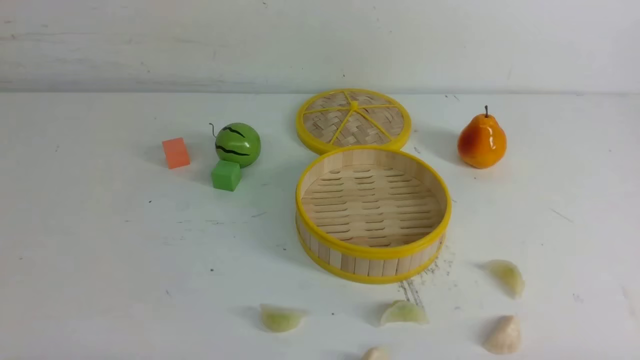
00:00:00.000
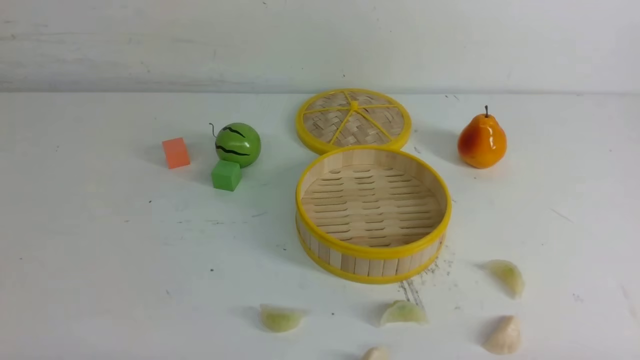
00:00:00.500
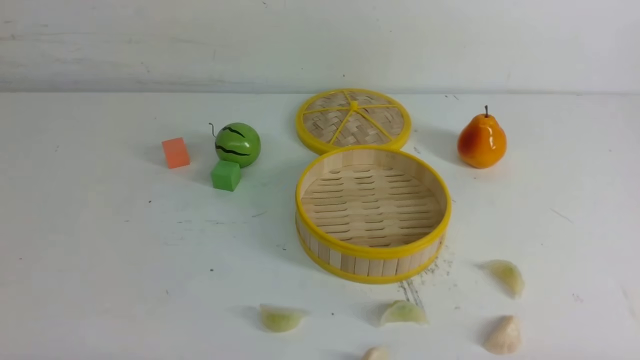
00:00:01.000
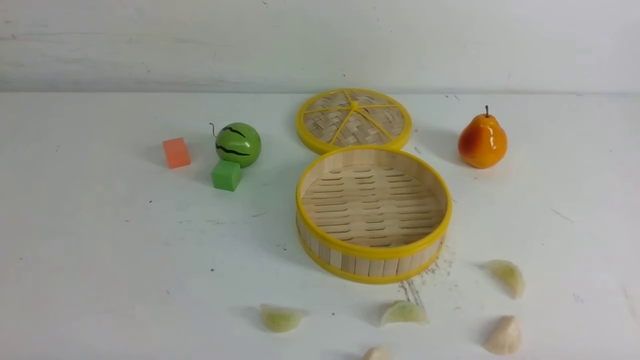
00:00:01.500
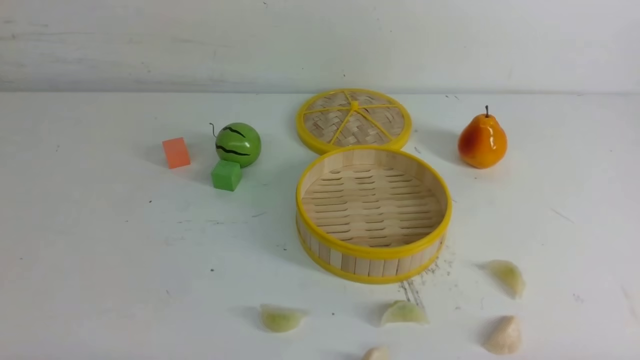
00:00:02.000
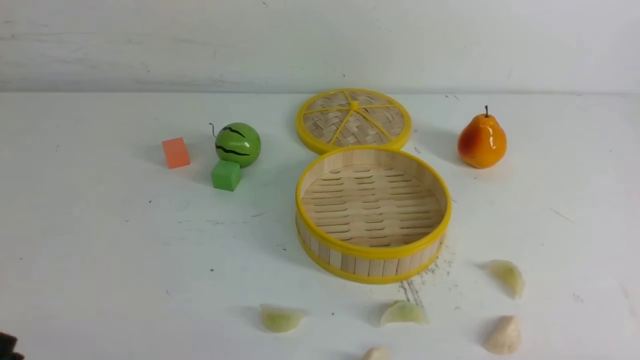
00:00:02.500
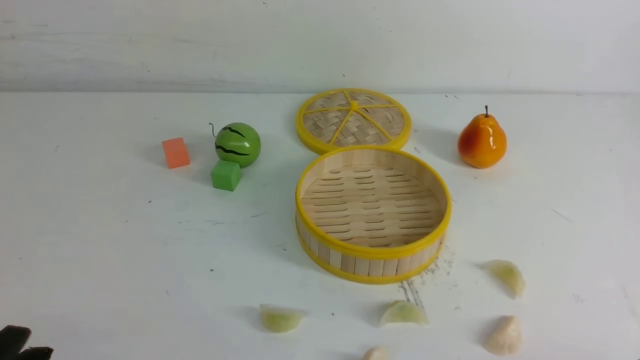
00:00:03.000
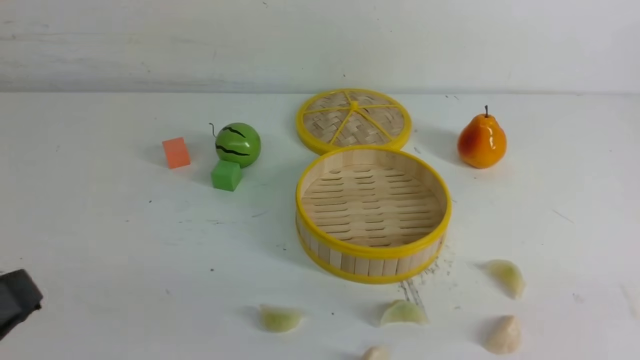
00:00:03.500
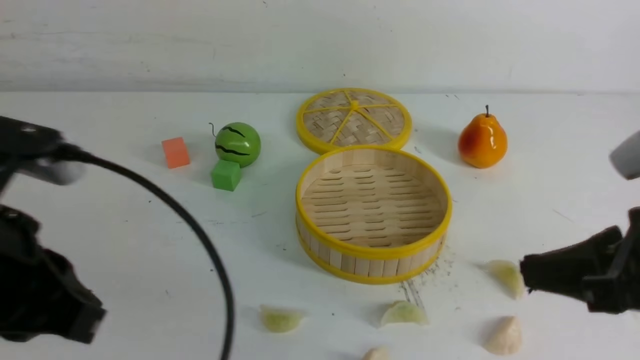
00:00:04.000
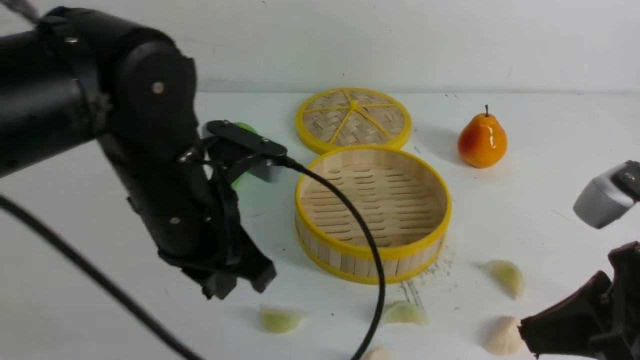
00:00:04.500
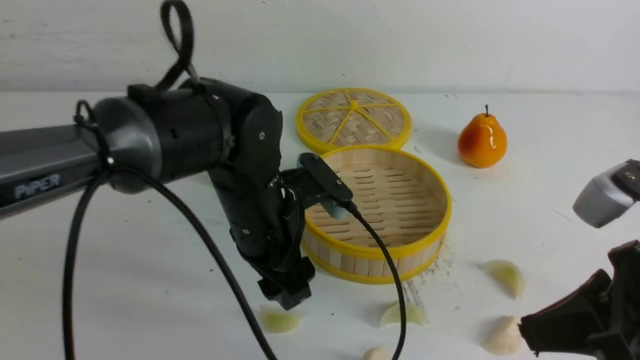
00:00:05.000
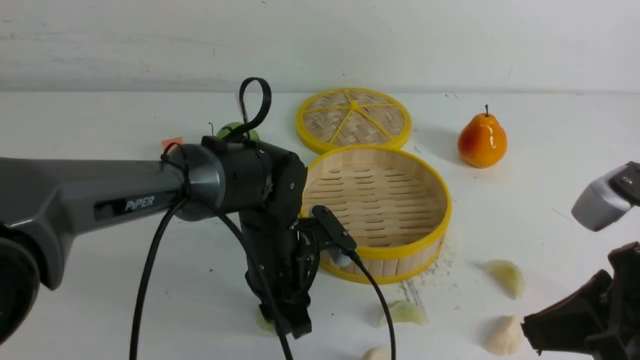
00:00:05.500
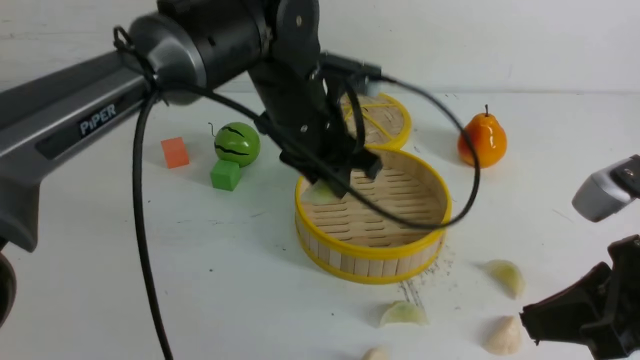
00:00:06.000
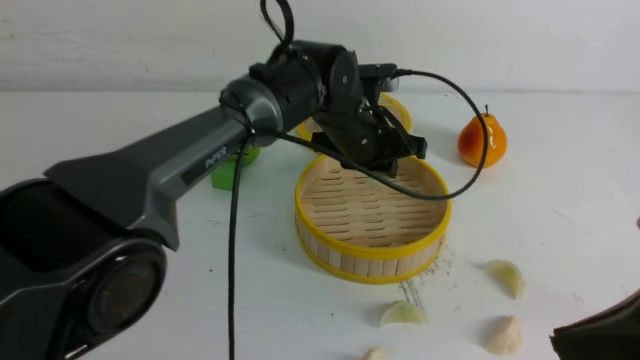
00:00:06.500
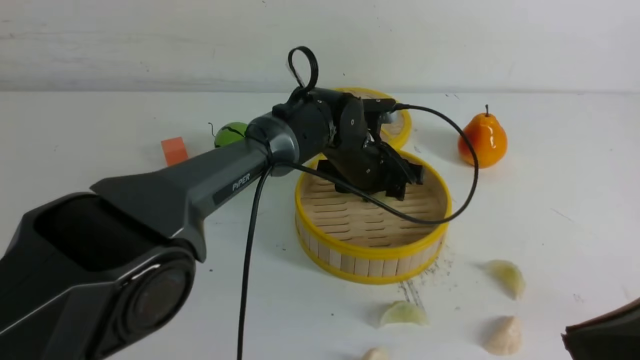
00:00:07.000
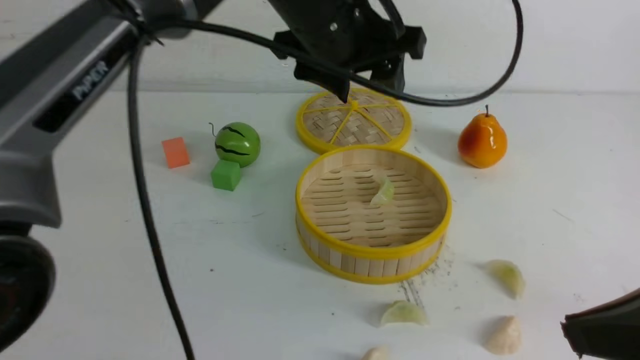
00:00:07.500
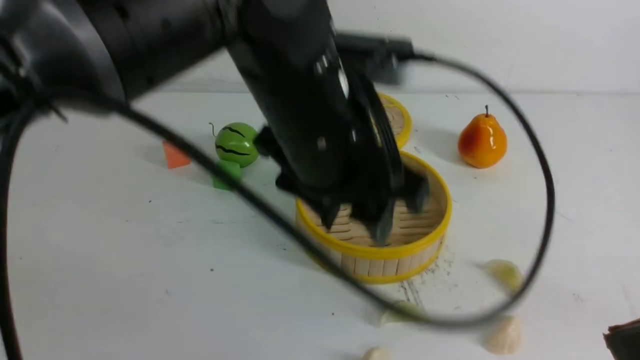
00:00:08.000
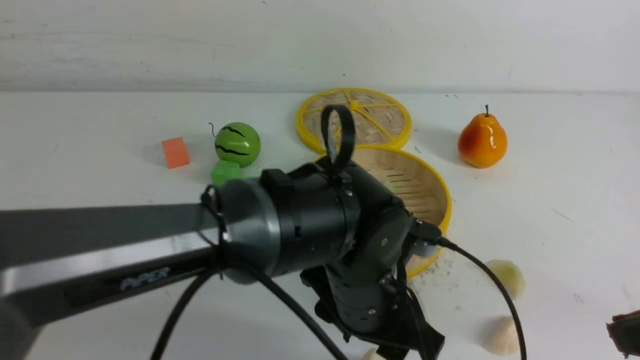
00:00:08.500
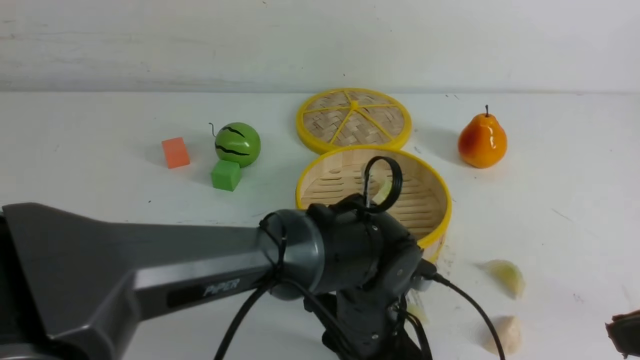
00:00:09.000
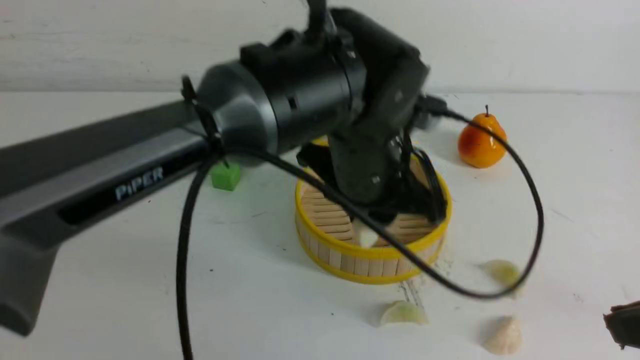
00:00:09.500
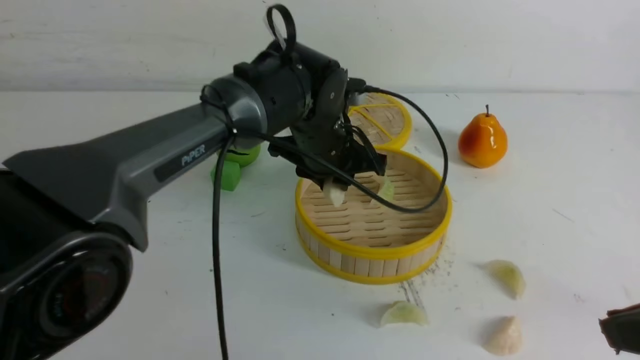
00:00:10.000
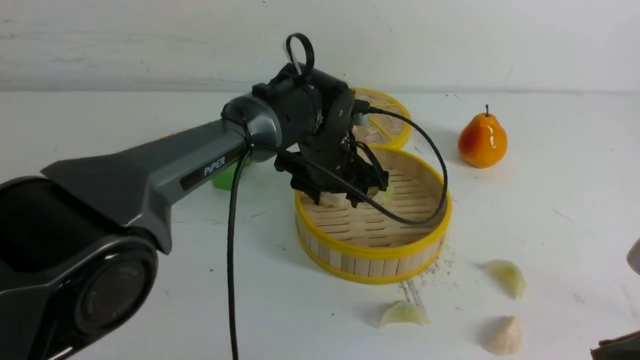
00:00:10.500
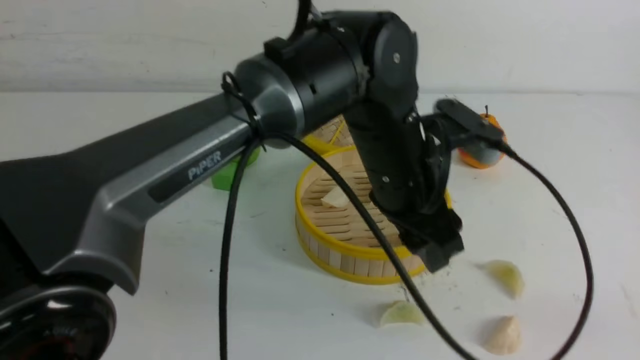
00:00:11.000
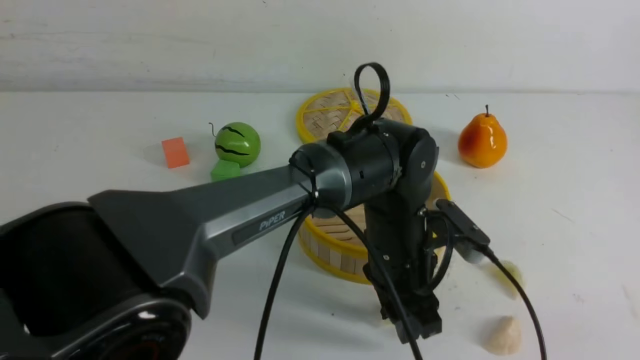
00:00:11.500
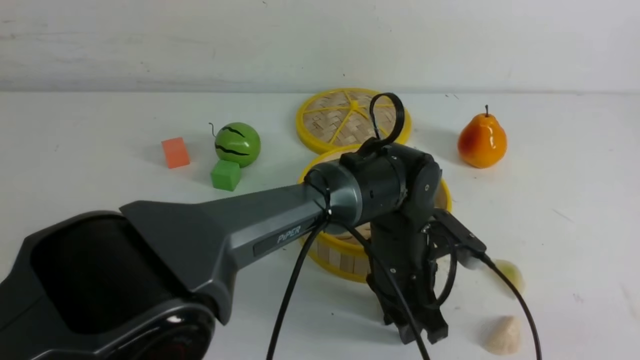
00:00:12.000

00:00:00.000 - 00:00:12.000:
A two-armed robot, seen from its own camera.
Task of the whole recording: put the dumplings into the steamer on the white table.
Step, 00:00:00.000 - 00:00:05.500: use the left arm to grab a dumpling.
Step, 00:00:06.000 - 00:00:07.000: use the left arm to put the dumpling into the steamer.
Step, 00:00:07.500 - 00:00:09.000: use the left arm to grab a dumpling.
Step, 00:00:09.500 - 00:00:10.500: use the left arm to put the dumpling into the steamer.
00:00:00.000 - 00:00:02.000: Neither gripper changes place.
00:00:02.000 - 00:00:04.000: The left gripper heads upward and forward, covering about 20 cm, and closes up. Meanwhile the right gripper moves upward, forward and to the left, roughly 20 cm, and closes up.
00:00:04.000 - 00:00:06.000: The left gripper goes some 30 cm forward and to the right, and opens.
00:00:06.000 - 00:00:08.000: The left gripper is displaced backward by roughly 10 cm, and opens up.
00:00:08.000 - 00:00:10.000: The left gripper moves up and down over roughly 20 cm, changing direction 2 times, and closes its fingers.
00:00:10.000 - 00:00:12.000: The left gripper shifts roughly 15 cm backward, to the right and downward, and opens, then closes once more. Meanwhile the right gripper moves backward, some 5 cm.

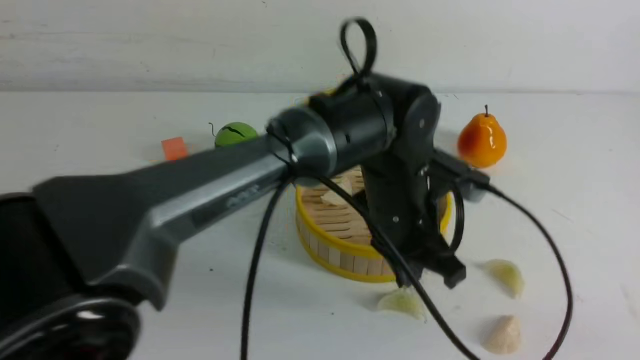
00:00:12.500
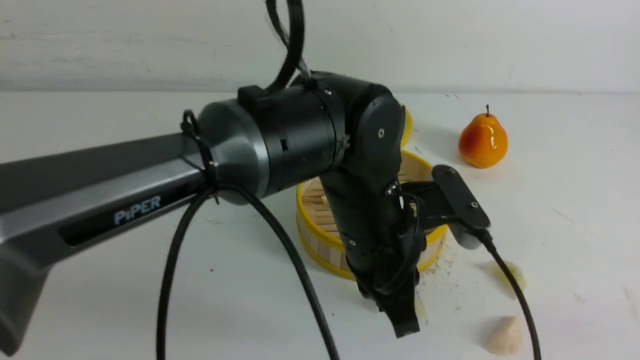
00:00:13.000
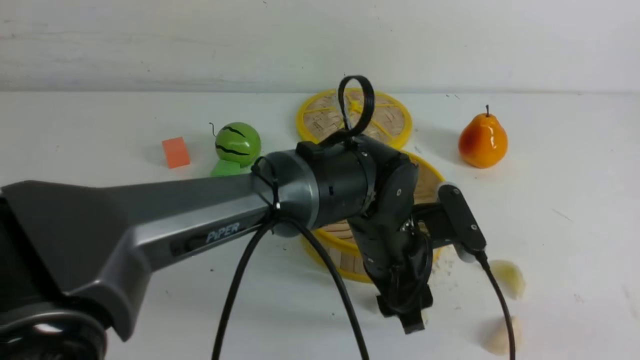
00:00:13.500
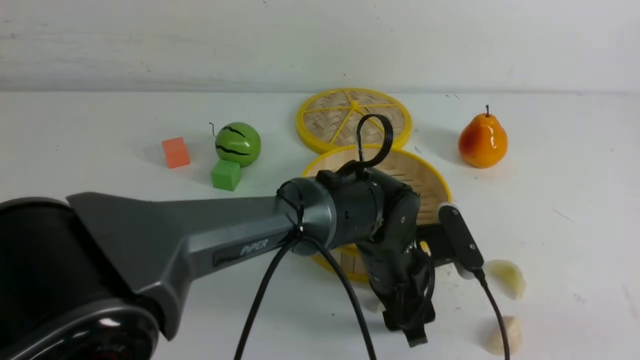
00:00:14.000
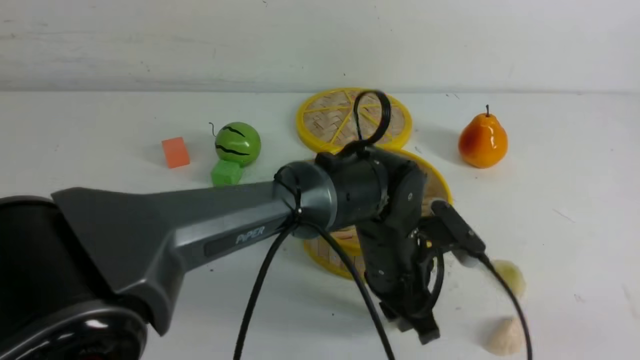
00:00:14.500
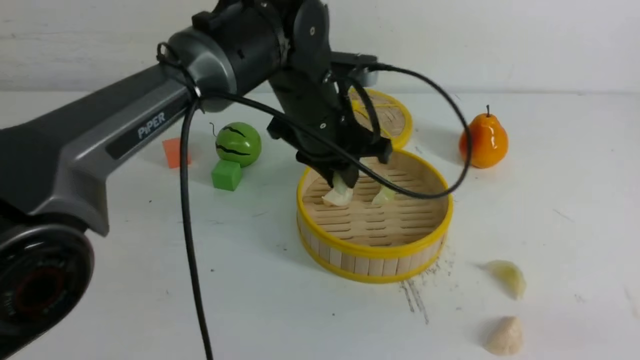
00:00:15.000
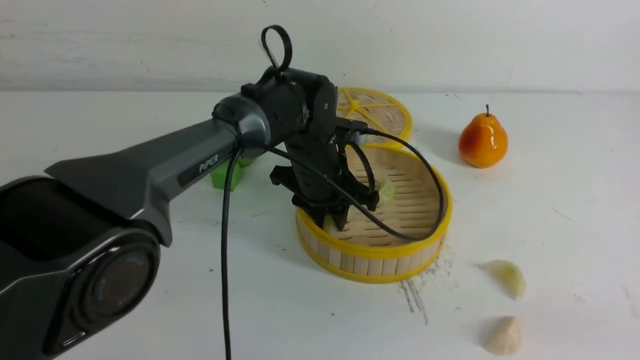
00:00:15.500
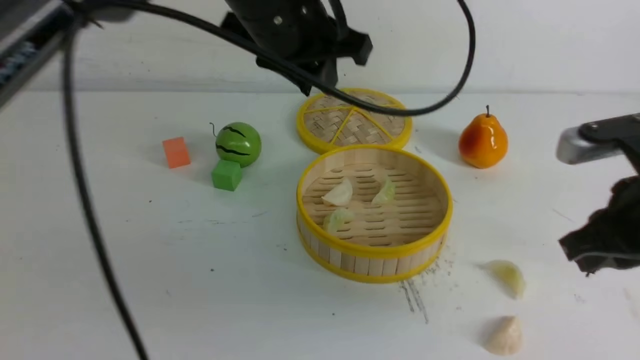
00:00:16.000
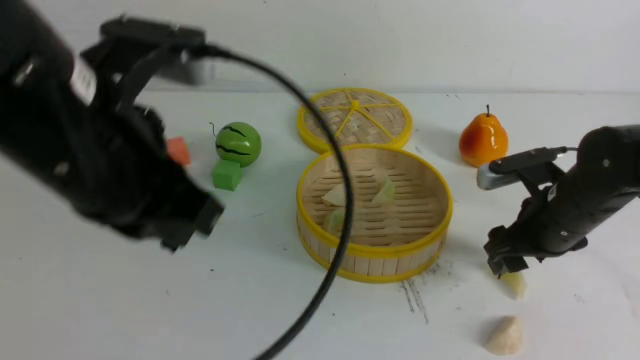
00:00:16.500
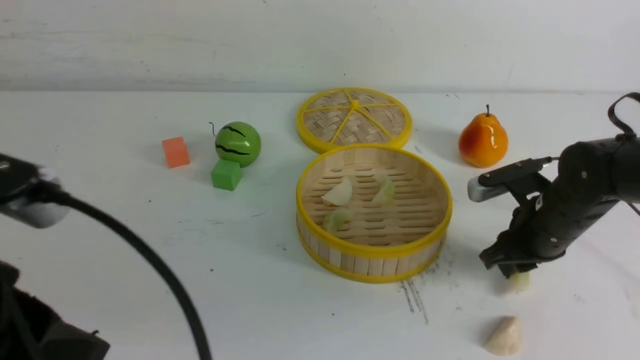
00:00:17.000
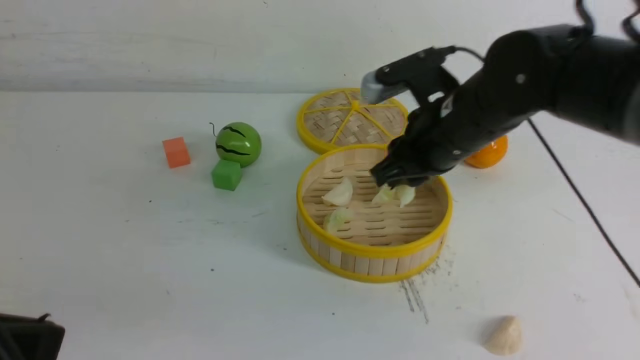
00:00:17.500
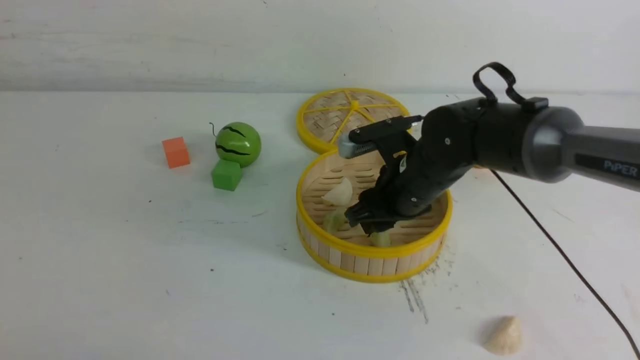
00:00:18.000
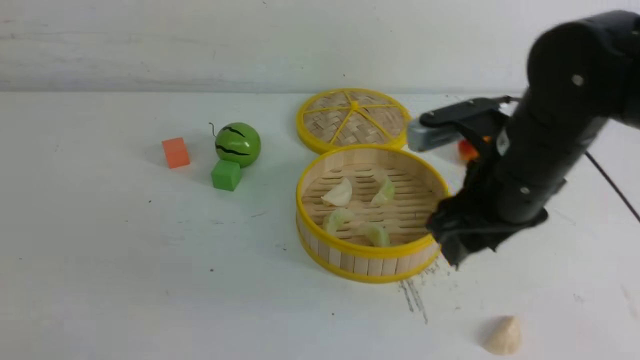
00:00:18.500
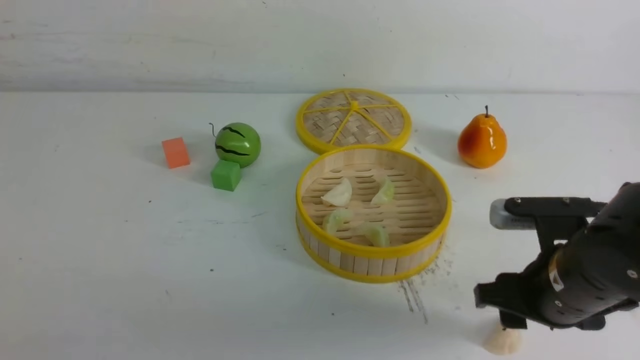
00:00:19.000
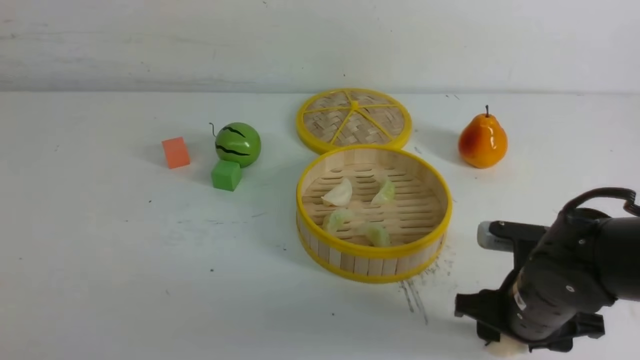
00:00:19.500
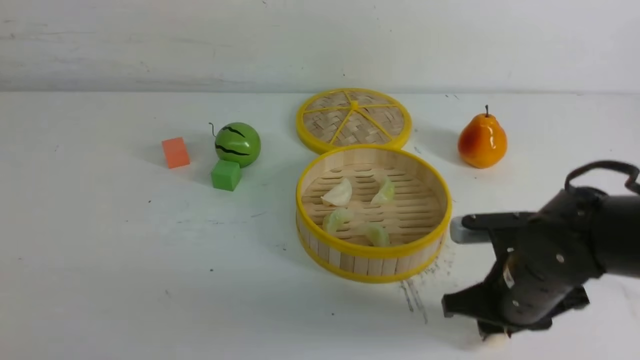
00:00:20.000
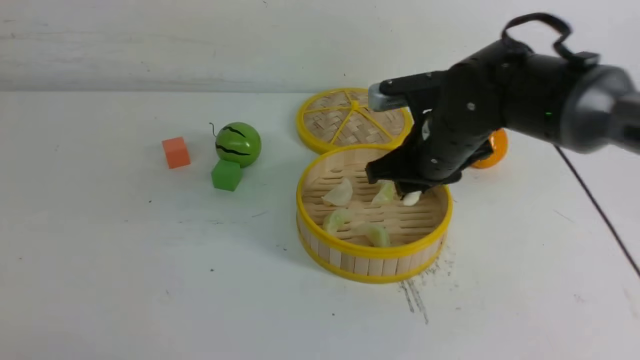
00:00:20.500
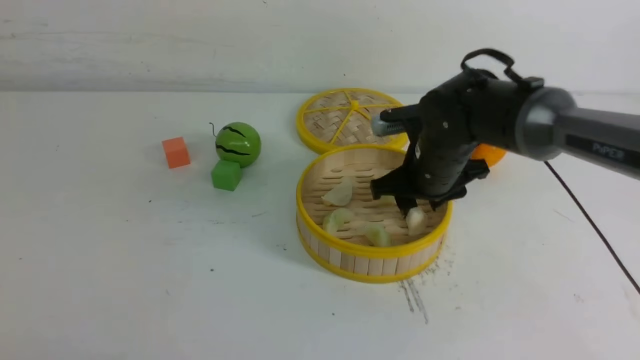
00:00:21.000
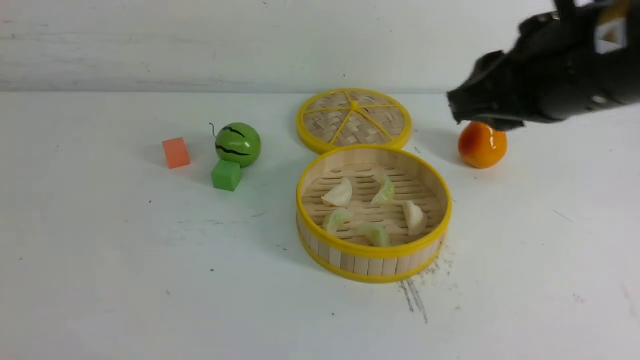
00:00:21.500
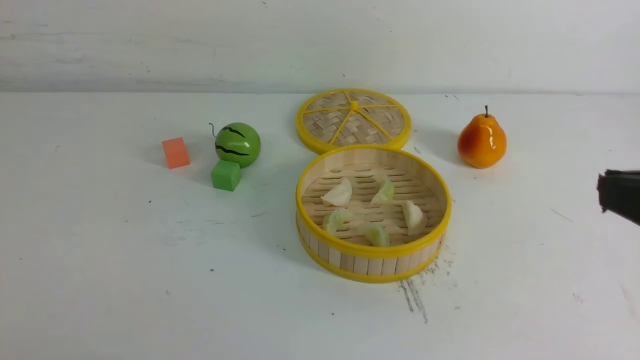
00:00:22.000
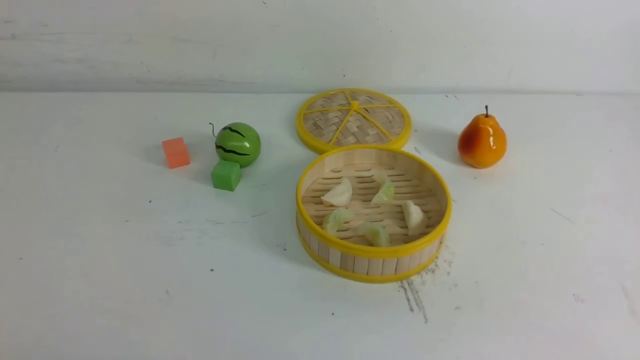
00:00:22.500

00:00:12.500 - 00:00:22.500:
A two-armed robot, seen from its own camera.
Task of the whole recording: put the dumplings into the steamer on the white table.
Step, 00:00:12.500 - 00:00:14.500: use the left arm to grab a dumpling.
Step, 00:00:15.000 - 00:00:15.500: use the left arm to put the dumpling into the steamer.
Step, 00:00:16.000 - 00:00:17.000: use the right arm to grab a dumpling.
Step, 00:00:17.500 - 00:00:18.000: use the right arm to put the dumpling into the steamer.
Step, 00:00:18.500 - 00:00:20.000: use the right arm to grab a dumpling.
00:00:12.500 - 00:00:14.500: The left gripper opens its fingers.
00:00:14.500 - 00:00:16.500: The left gripper travels to the left, upward and backward by some 30 cm, and closes, while the right gripper moves forward and downward, approximately 30 cm, and opens up.
00:00:16.500 - 00:00:18.500: The right gripper is displaced upward, to the left and backward by approximately 15 cm, and closes, then opens again. Meanwhile the left gripper heads backward and to the left, covering some 20 cm.
00:00:18.500 - 00:00:20.500: The right gripper goes some 10 cm forward, and closes its fingers.
00:00:20.500 - 00:00:22.500: The right gripper goes some 35 cm backward, to the right and upward, and closes its fingers.
